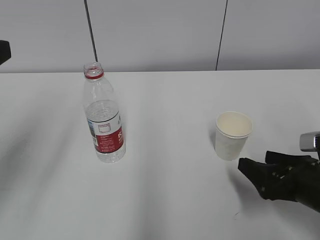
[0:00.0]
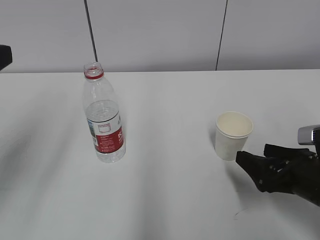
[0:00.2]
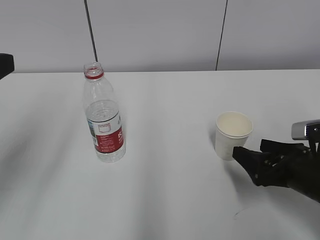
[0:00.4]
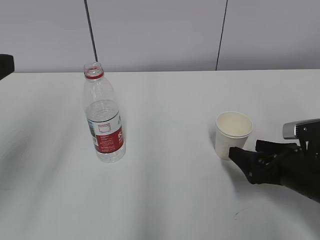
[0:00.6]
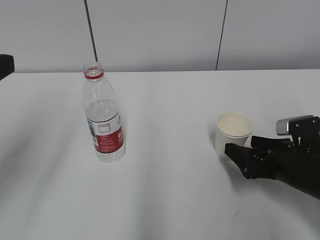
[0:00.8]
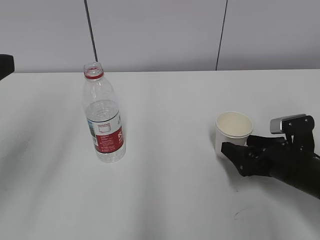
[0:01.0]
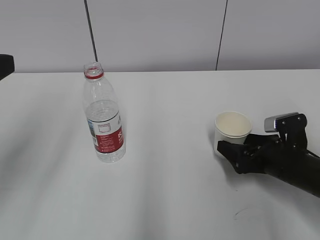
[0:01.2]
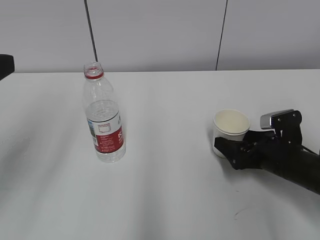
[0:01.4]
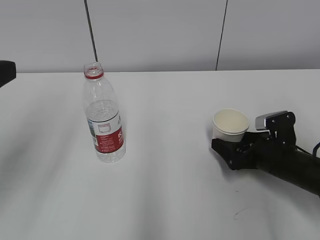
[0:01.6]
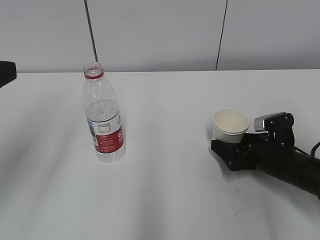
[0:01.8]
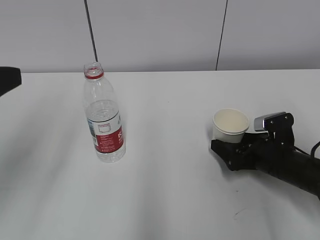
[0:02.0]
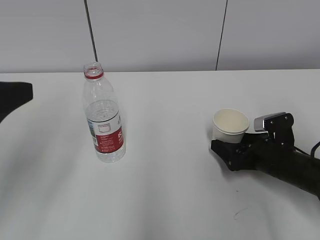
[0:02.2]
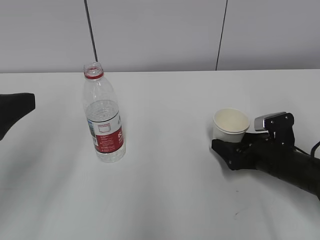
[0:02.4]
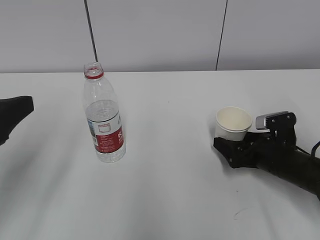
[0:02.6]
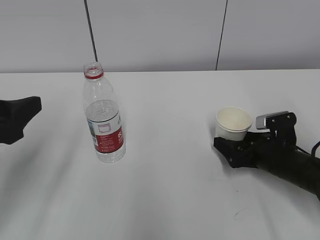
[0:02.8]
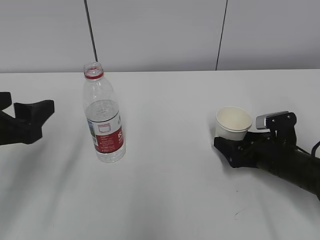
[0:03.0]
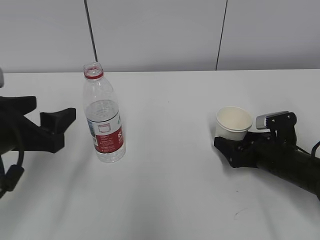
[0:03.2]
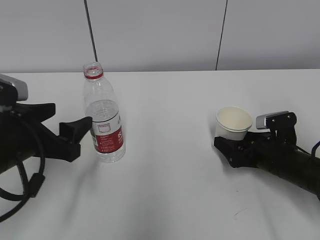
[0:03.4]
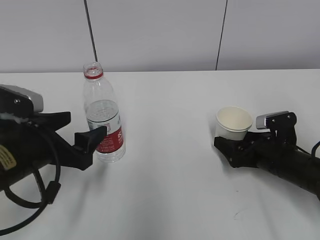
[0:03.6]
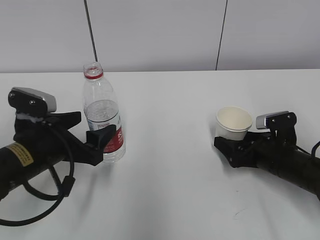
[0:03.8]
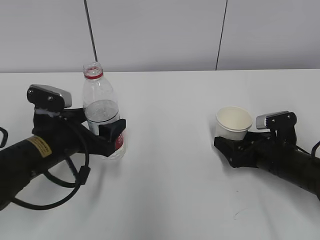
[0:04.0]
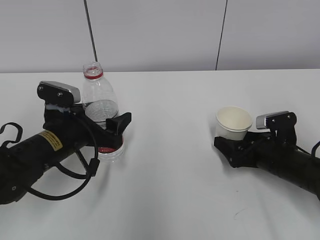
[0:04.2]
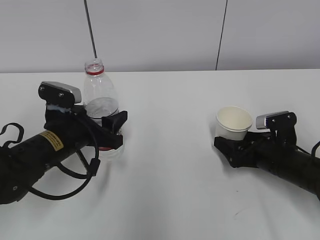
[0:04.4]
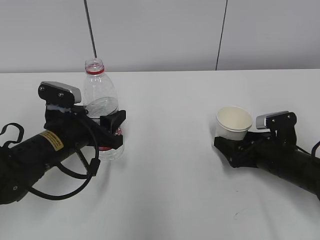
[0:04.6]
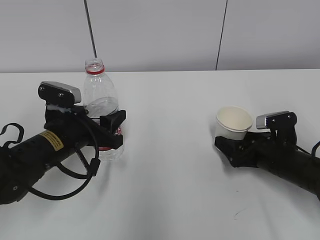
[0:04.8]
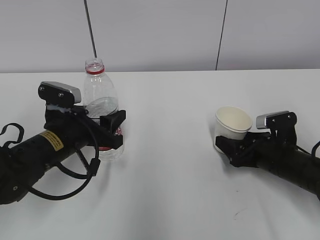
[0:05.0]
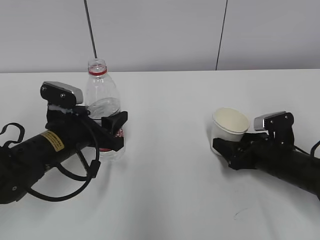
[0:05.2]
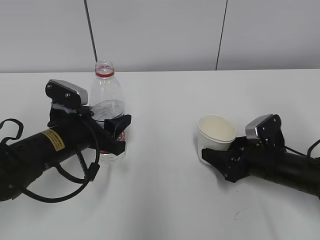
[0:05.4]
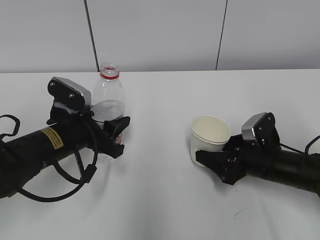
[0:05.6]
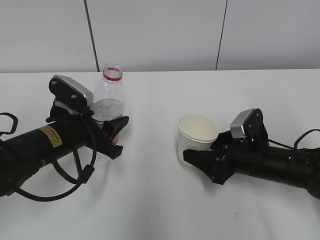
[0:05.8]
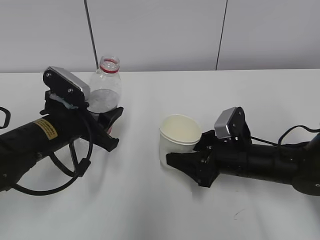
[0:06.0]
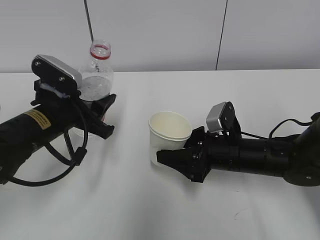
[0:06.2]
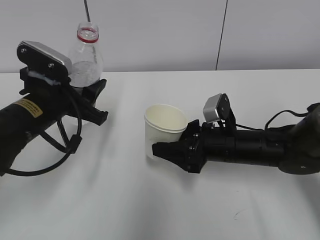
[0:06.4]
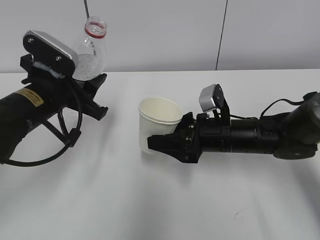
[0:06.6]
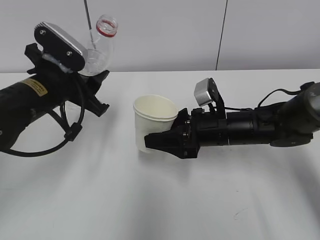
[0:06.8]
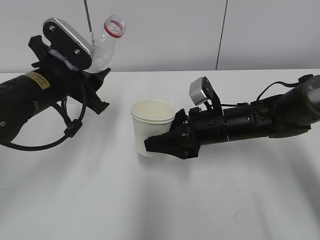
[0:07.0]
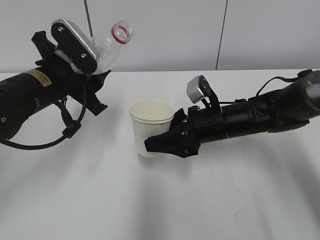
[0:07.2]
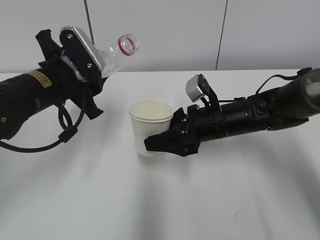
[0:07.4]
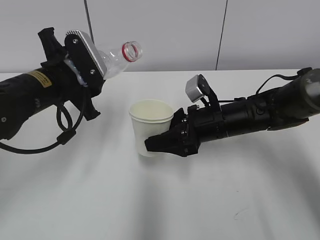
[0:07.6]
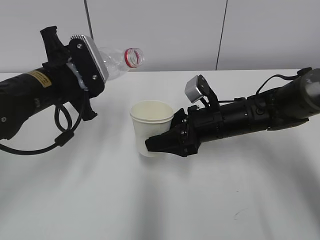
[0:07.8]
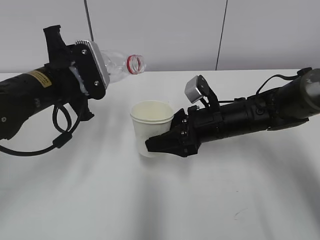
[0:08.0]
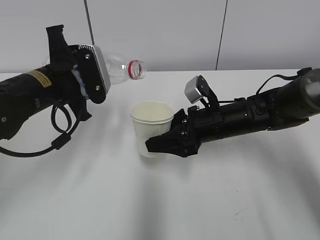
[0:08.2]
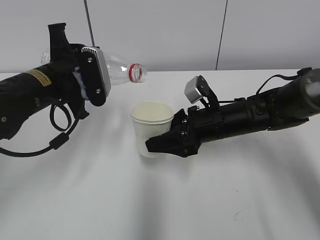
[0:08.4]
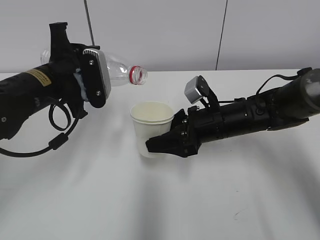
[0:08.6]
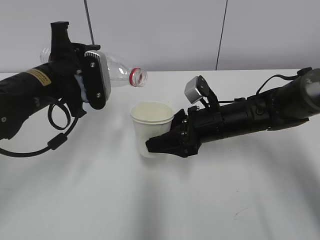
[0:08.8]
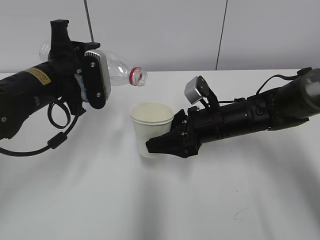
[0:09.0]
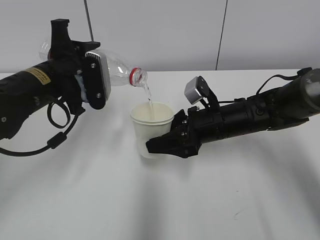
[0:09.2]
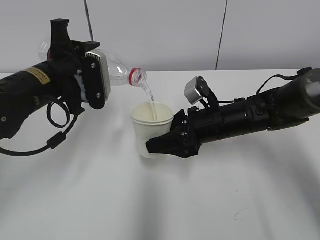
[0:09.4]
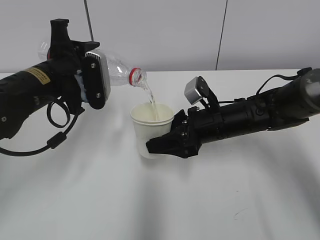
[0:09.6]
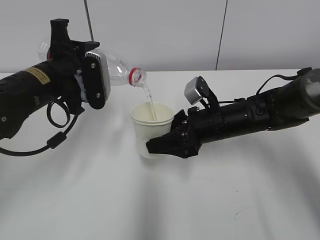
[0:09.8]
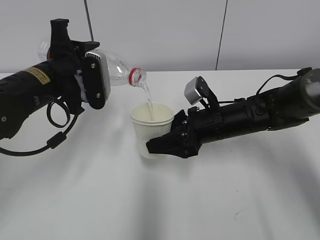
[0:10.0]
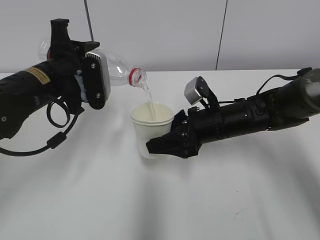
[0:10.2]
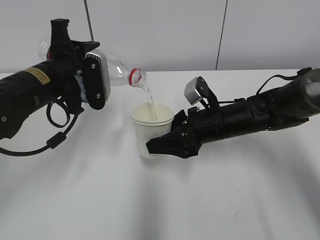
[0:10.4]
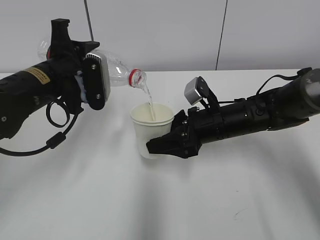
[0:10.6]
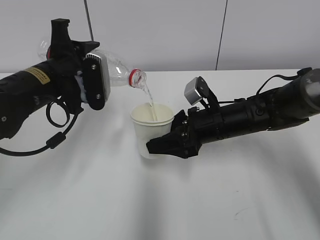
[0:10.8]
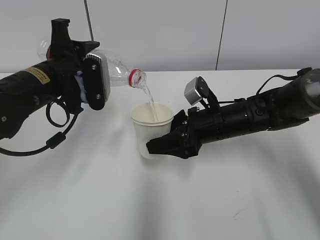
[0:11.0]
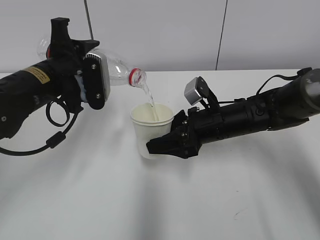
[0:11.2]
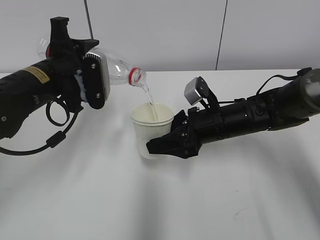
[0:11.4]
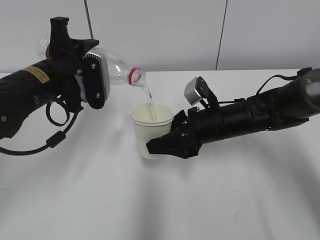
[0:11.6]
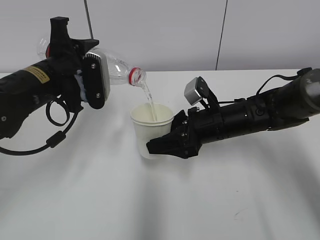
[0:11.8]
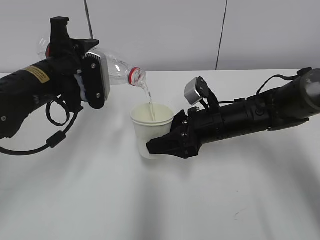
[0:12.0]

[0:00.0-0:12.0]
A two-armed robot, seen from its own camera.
Step, 0:00.0 to 0:03.2: Grab the paper cup with the right hand.
Step, 0:00.0 to 0:03.2: Grab the water bottle with the left hand.
Step, 0:03.4 to 0:06.6: Lift the paper cup with the right hand.
Step, 0:06.8 to 0:10.4: Fill water with the right hand.
Step, 0:06.8 to 0:10.4: Pour water with the left hand.
0:00.0 to 0:01.6: The right gripper is displaced forward by roughly 10 cm.
0:01.6 to 0:03.0: The left gripper travels downward by some 10 cm.
0:03.0 to 0:04.4: The left gripper goes about 15 cm downward, forward and to the right.
0:04.4 to 0:06.0: The right gripper heads to the left, covering some 10 cm, and closes up, while the left gripper closes up.
0:06.0 to 0:07.6: The left gripper heads upward, covering about 5 cm; the right gripper heads forward, covering roughly 5 cm.
0:09.0 to 0:12.0: Neither gripper changes place.

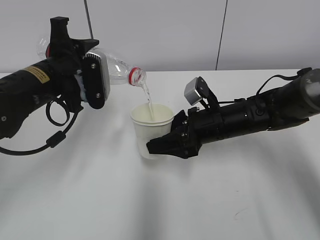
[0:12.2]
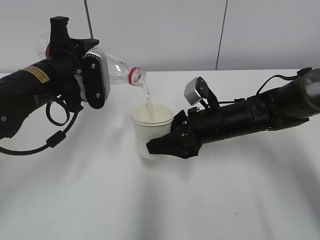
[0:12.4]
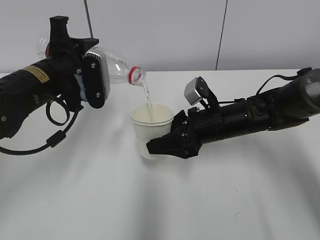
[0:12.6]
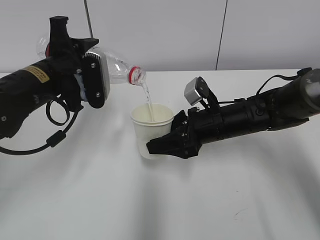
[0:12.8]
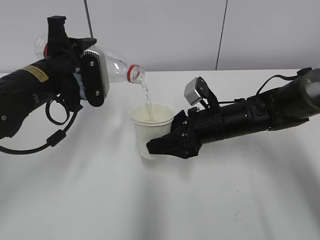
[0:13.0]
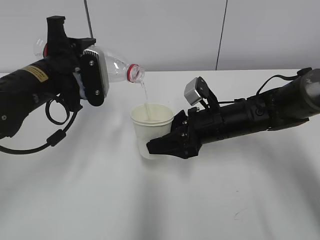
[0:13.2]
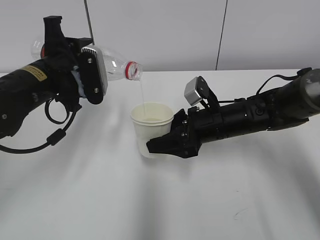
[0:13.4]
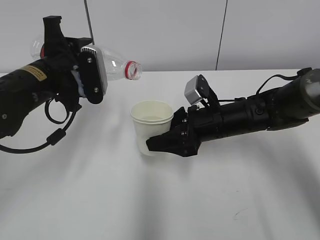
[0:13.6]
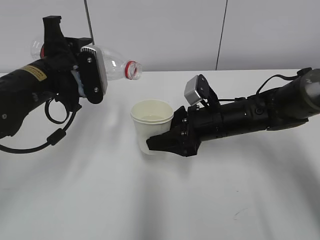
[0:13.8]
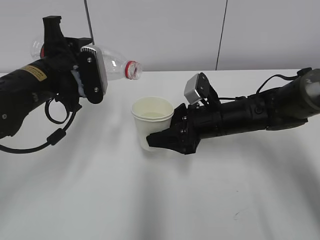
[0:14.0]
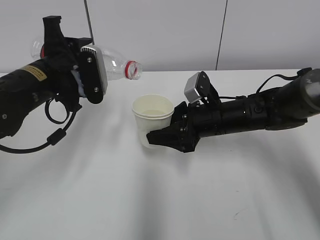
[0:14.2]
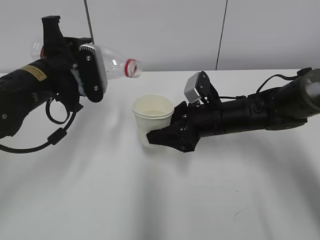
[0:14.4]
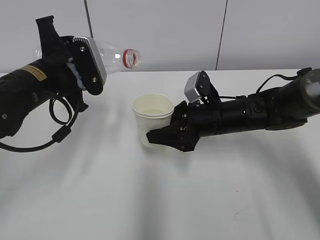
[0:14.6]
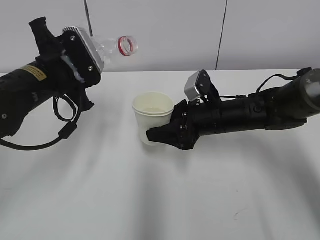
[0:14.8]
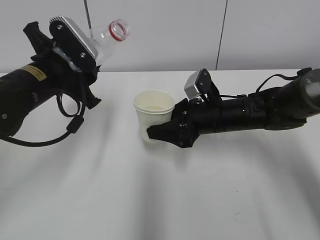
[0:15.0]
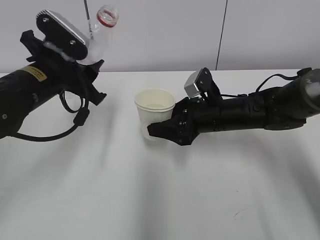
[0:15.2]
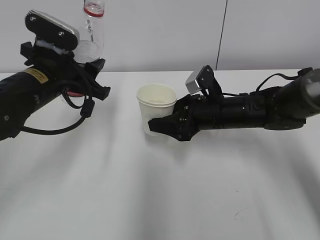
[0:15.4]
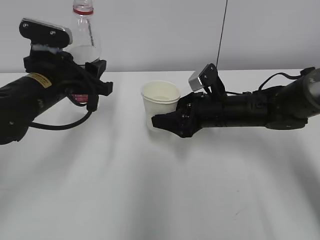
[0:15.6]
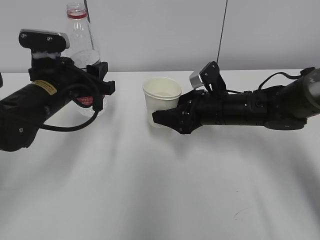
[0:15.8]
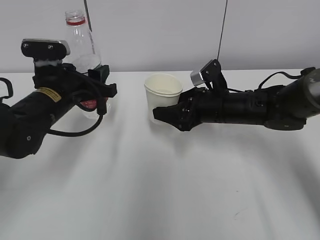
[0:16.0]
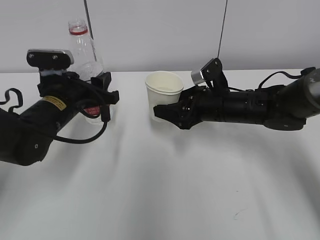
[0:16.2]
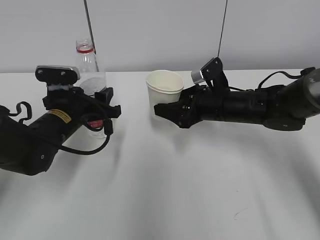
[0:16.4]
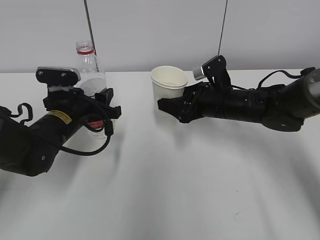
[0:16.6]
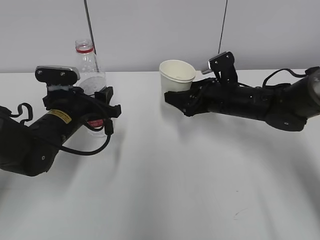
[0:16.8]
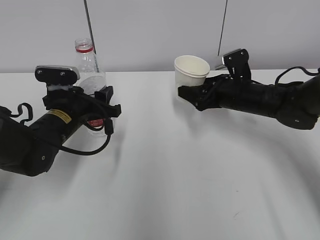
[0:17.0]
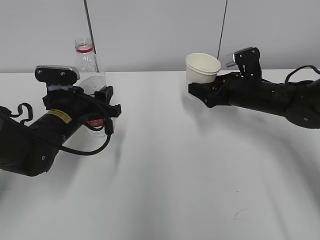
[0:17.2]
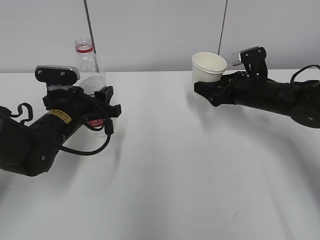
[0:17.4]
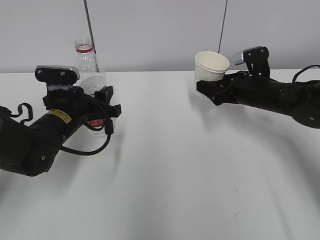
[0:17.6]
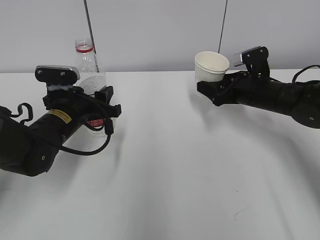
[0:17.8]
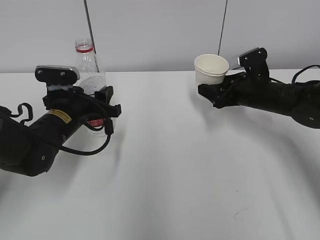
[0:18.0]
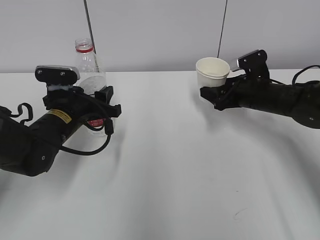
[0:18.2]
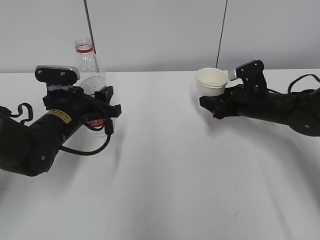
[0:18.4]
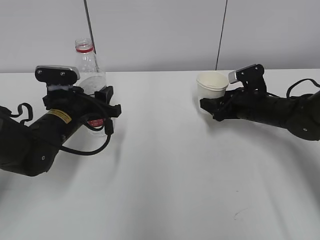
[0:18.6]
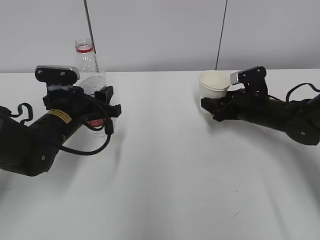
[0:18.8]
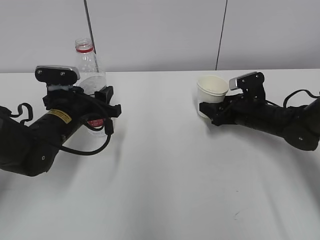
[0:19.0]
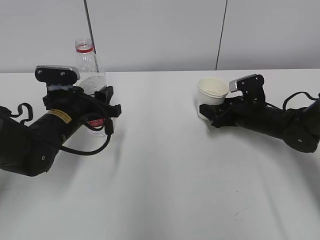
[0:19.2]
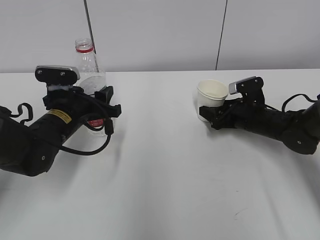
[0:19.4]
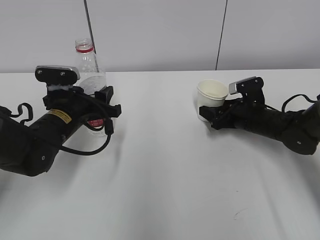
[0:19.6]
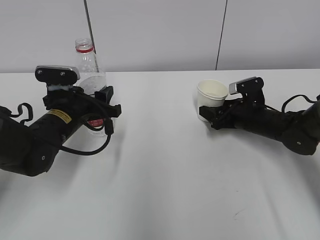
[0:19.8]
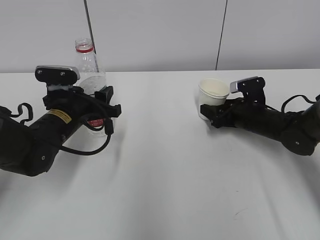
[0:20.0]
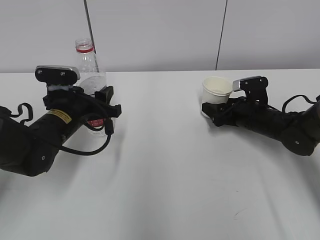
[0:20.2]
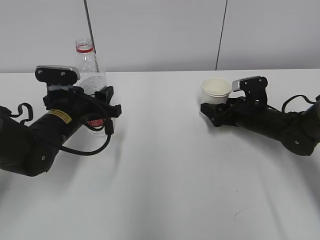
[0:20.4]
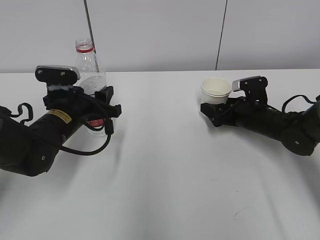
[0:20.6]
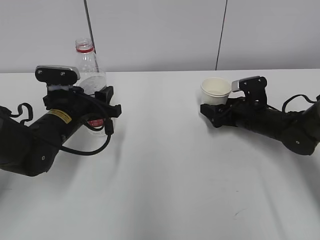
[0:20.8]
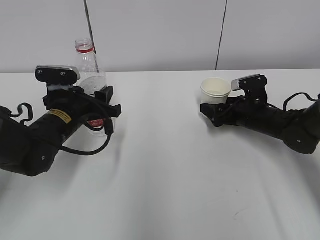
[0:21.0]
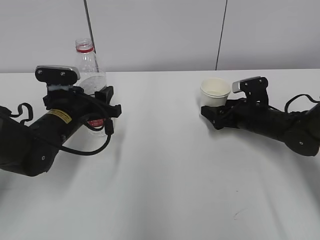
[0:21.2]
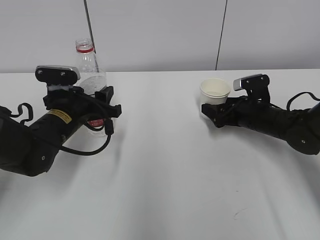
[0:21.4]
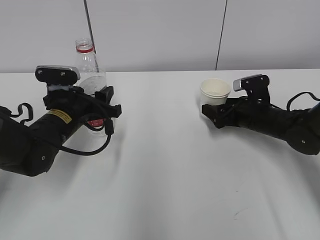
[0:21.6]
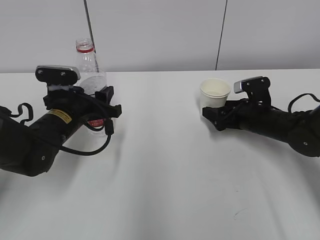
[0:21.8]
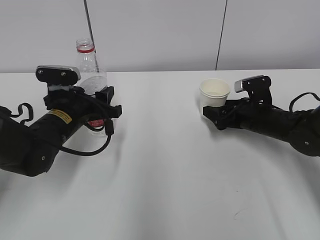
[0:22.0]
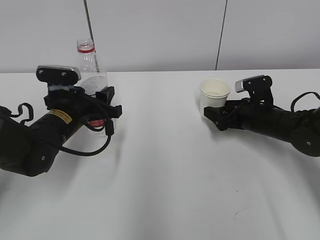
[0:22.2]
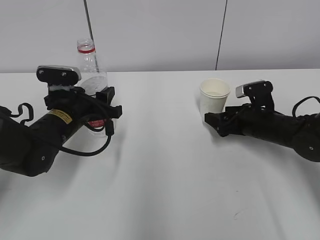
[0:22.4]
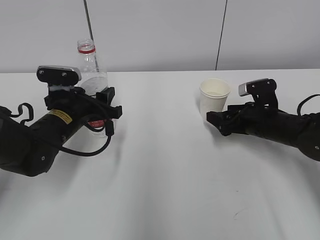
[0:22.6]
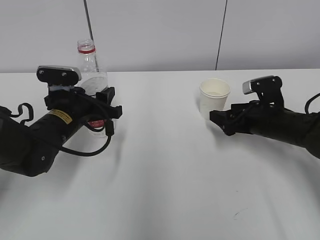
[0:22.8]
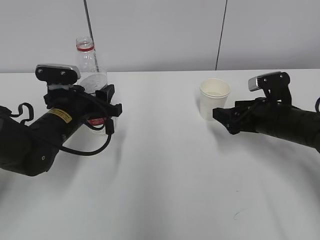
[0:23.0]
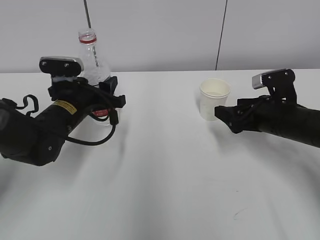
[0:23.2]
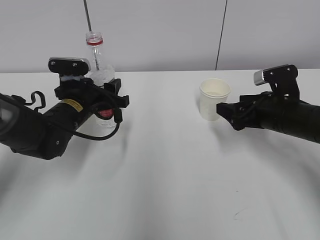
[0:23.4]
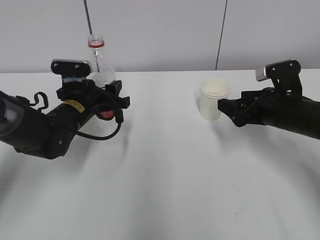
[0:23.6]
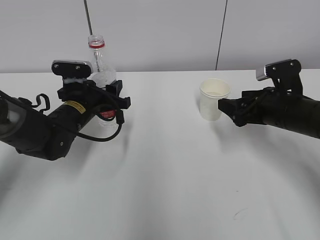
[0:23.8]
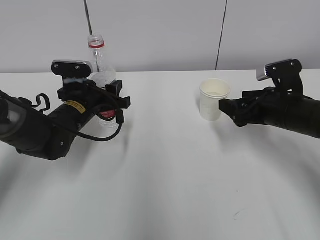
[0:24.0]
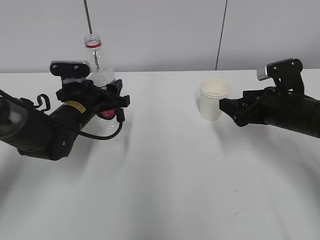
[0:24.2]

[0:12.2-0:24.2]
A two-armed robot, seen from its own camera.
Step, 0:12.4 to 0:16.2: Place the paper cup with the right hand.
0:12.2 to 0:13.8: The two grippers keep their place.
0:15.2 to 0:16.6: The left gripper heads downward, covering about 10 cm.
0:16.6 to 0:18.2: The right gripper shifts approximately 10 cm to the right.
0:18.2 to 0:19.8: The right gripper is displaced downward by about 5 cm.
0:19.8 to 0:21.2: The right gripper opens up.
0:21.2 to 0:22.6: The grippers move only a little.
0:22.6 to 0:24.2: The right gripper shifts about 5 cm upward.
